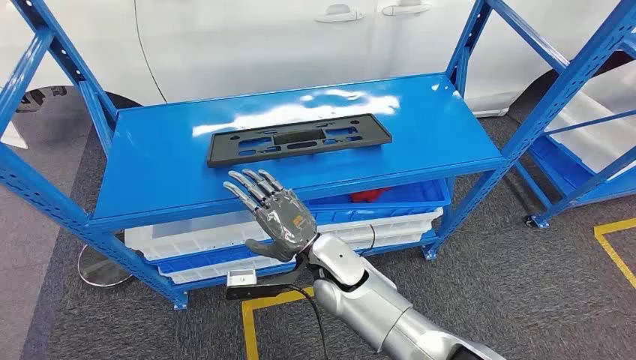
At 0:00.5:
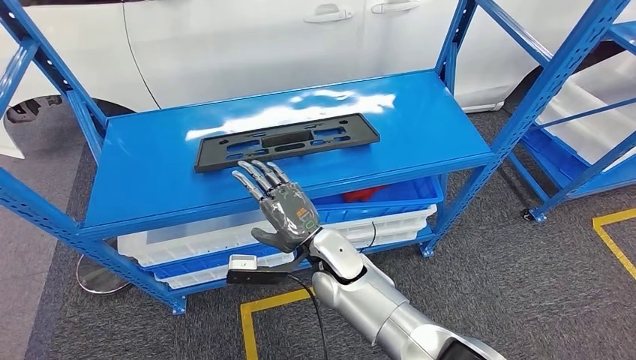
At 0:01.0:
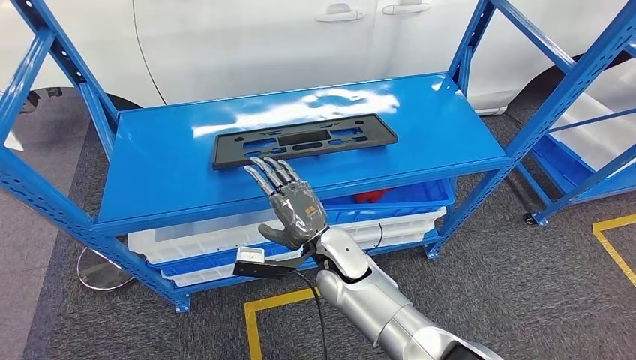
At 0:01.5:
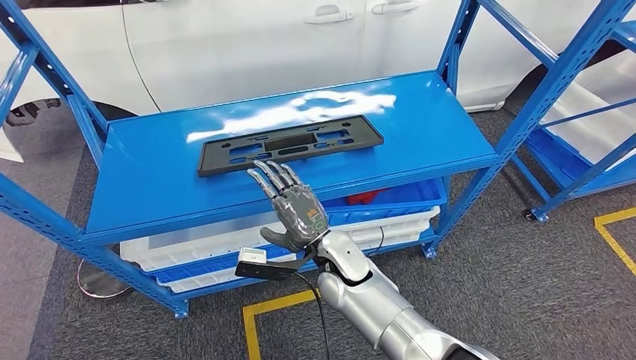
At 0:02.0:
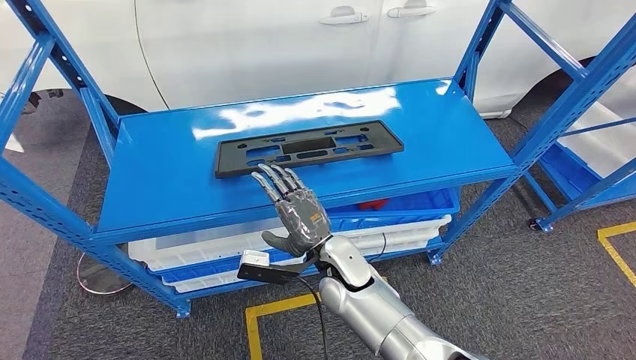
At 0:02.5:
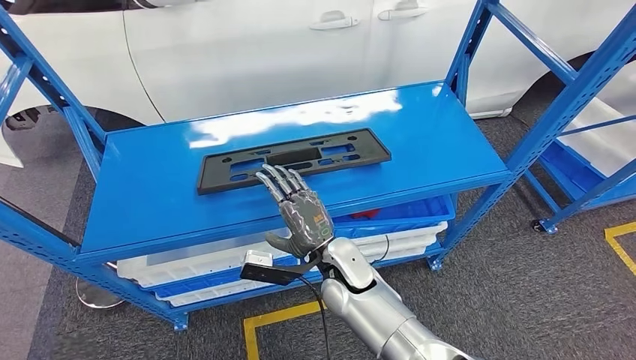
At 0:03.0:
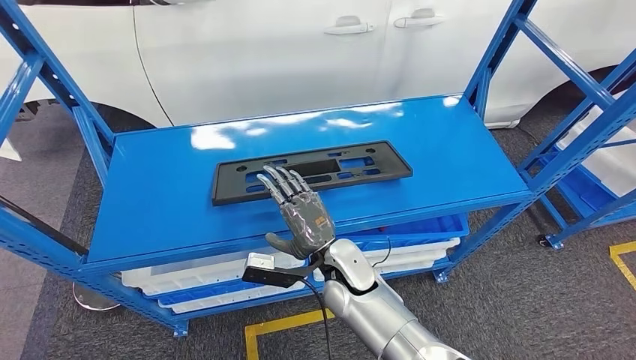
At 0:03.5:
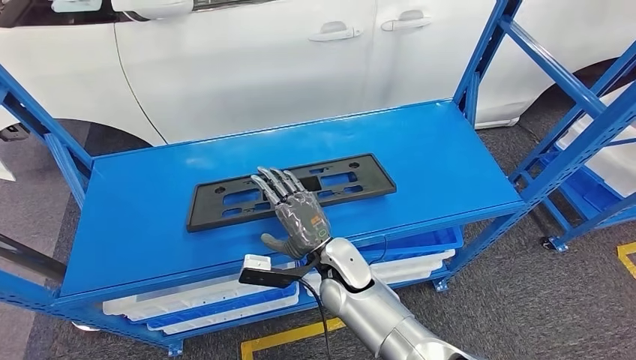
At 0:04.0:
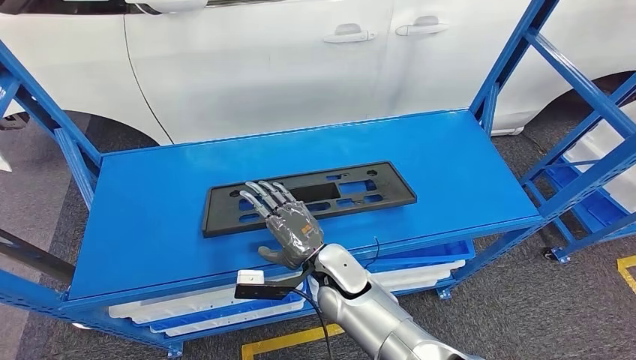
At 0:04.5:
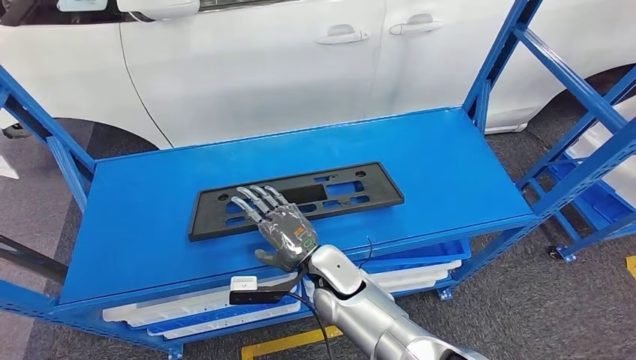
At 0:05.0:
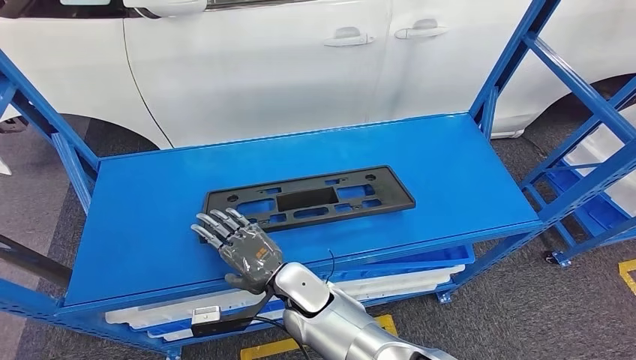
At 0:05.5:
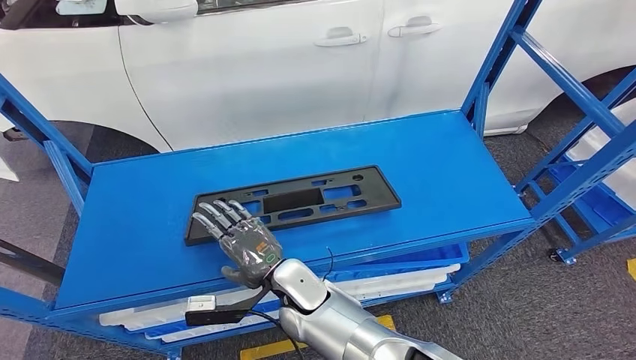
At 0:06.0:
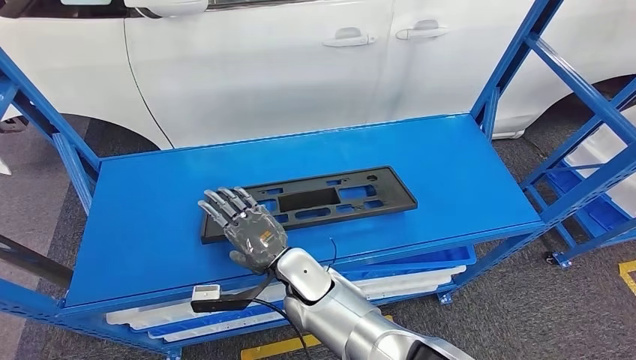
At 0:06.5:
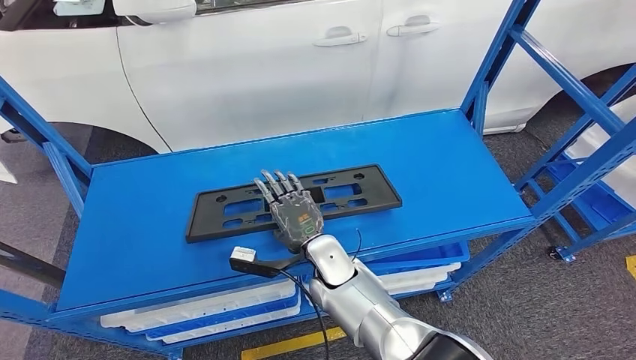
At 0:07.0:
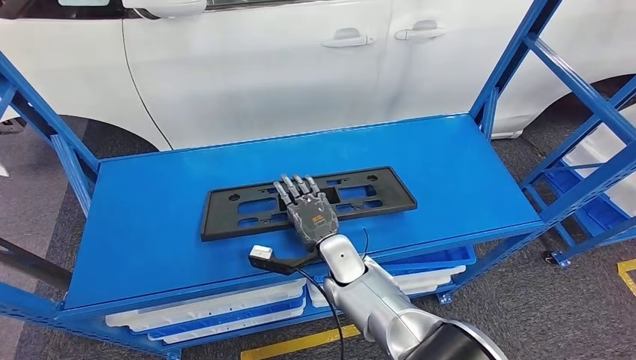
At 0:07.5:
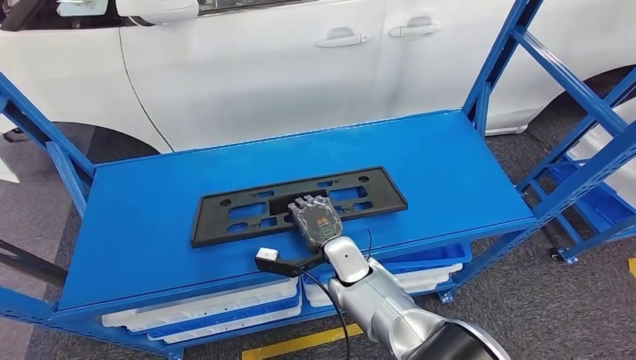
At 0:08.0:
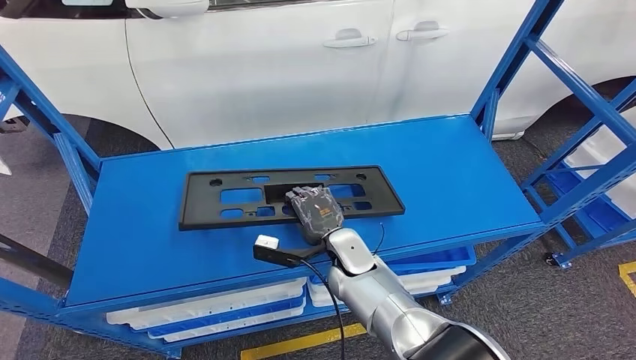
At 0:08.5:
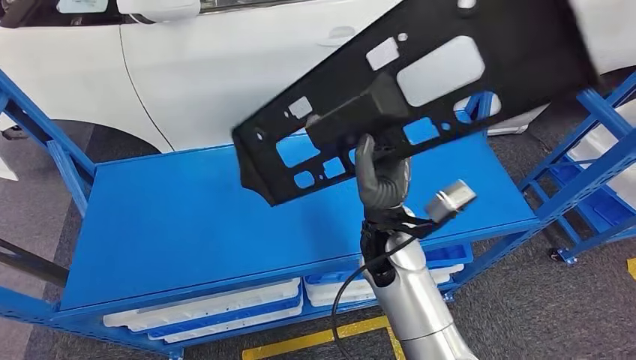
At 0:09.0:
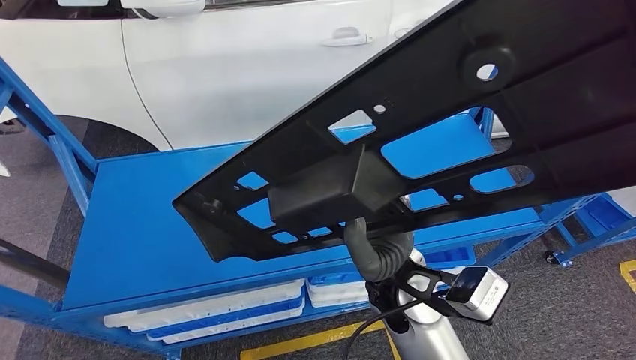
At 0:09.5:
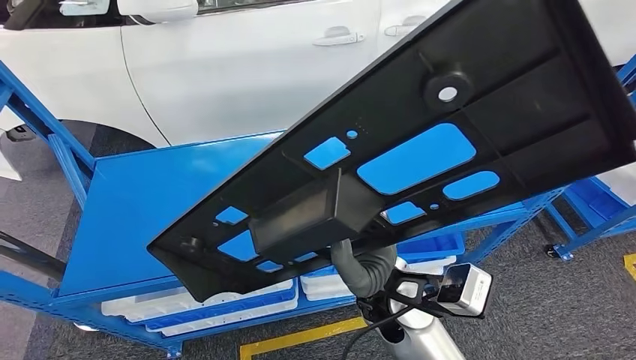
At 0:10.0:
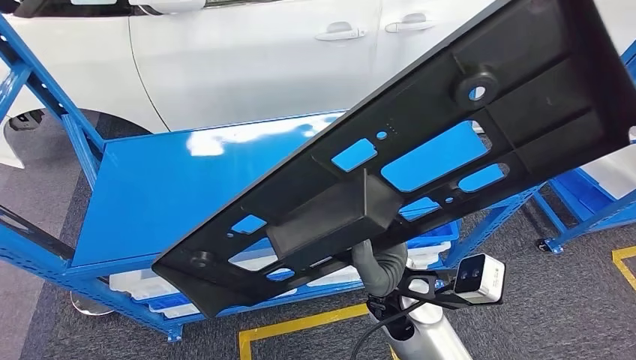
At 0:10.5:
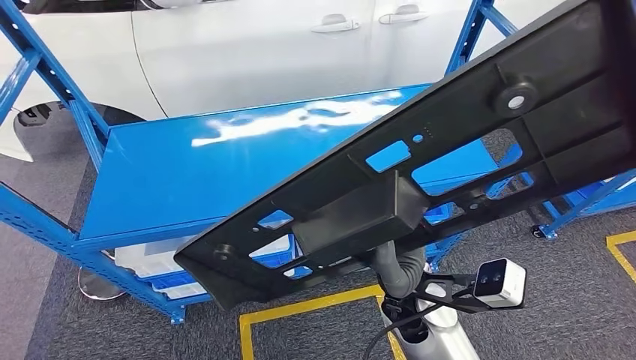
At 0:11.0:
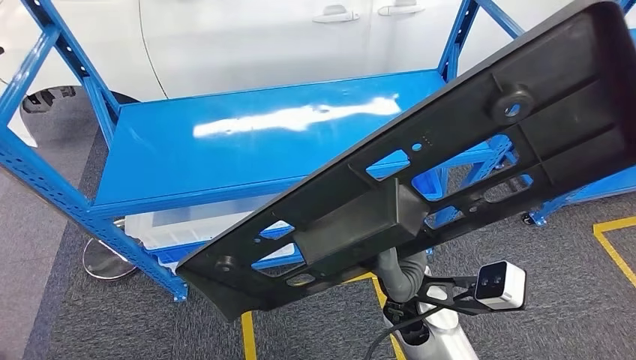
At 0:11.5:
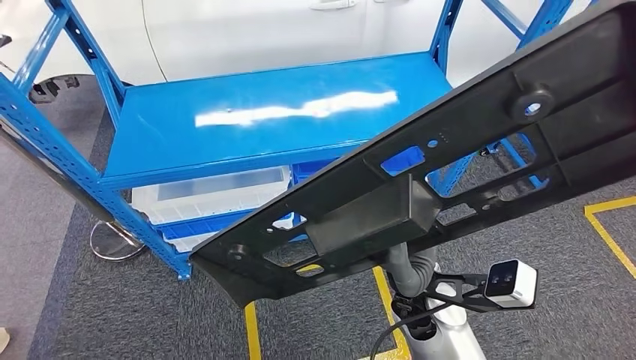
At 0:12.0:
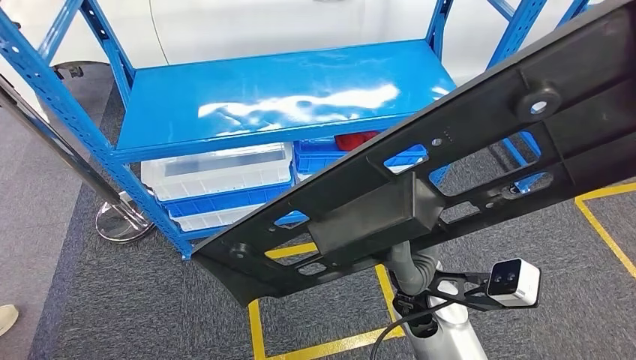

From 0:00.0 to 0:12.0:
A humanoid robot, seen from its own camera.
Step, from 0:00.0 to 0:09.0: Pick up the small component from the shelf.
From 0:06.0 to 0:08.0: The right hand shifts approximately 10 cm to the right and forward.

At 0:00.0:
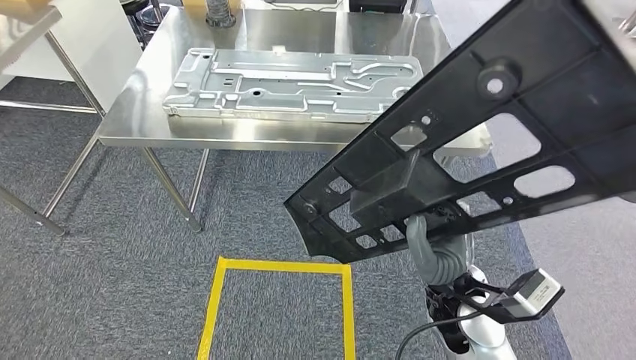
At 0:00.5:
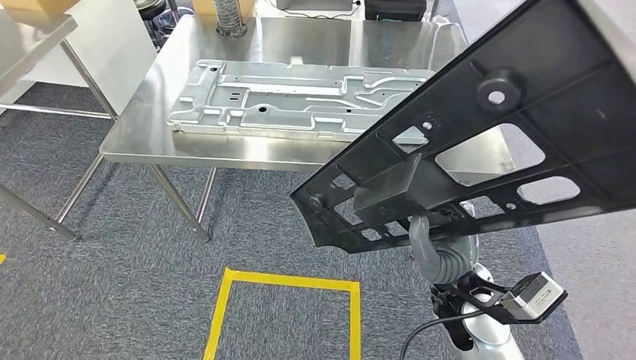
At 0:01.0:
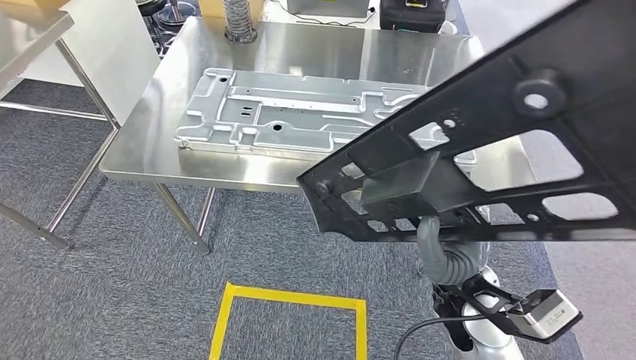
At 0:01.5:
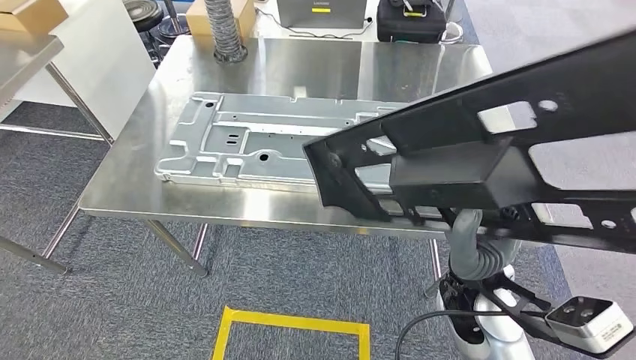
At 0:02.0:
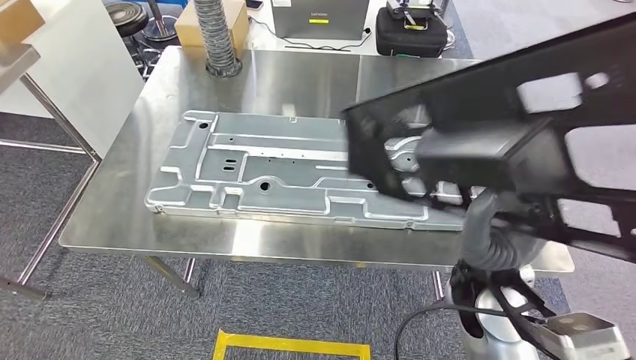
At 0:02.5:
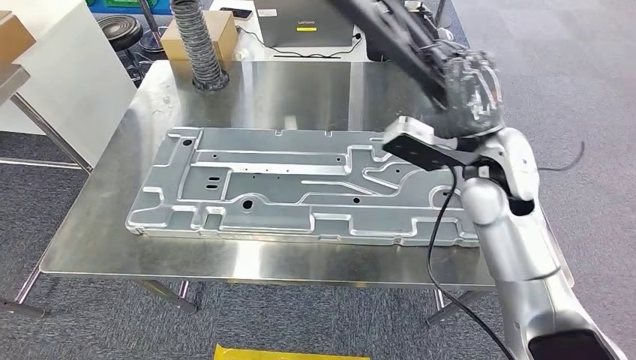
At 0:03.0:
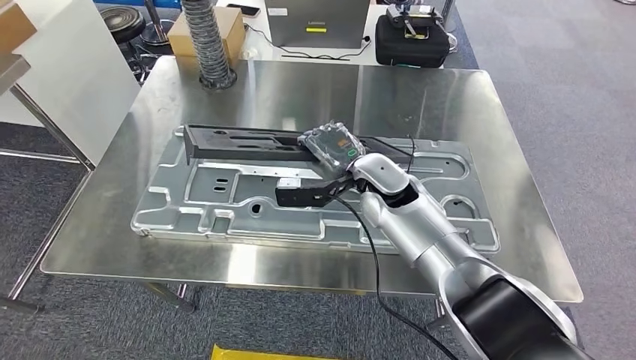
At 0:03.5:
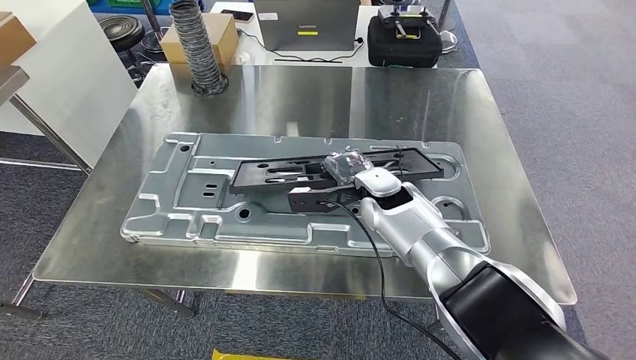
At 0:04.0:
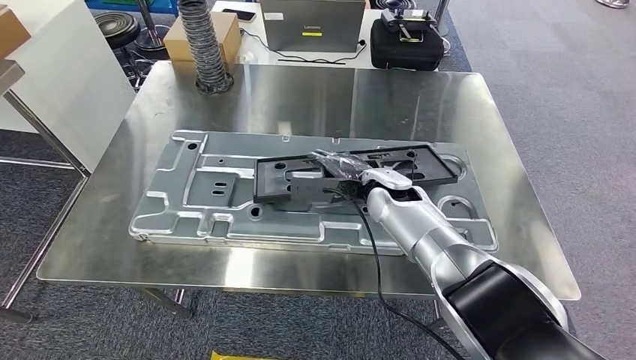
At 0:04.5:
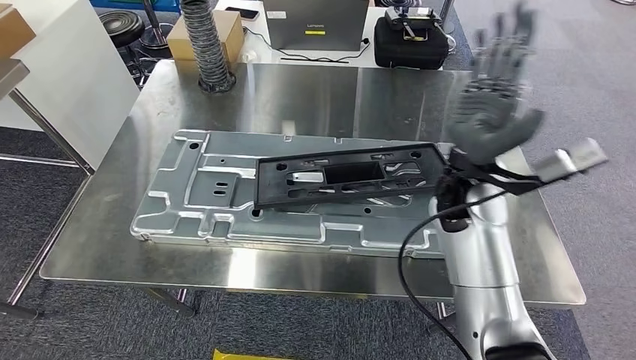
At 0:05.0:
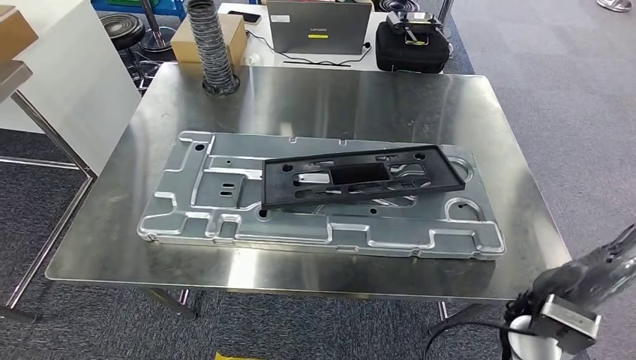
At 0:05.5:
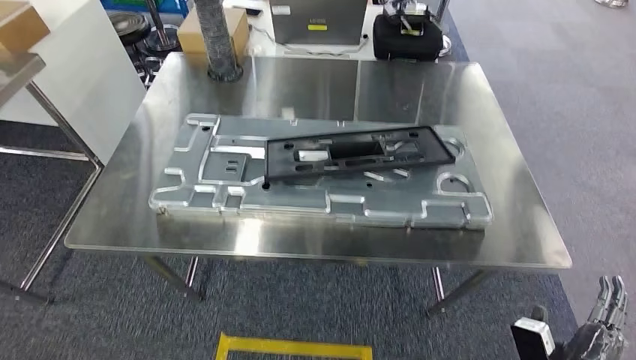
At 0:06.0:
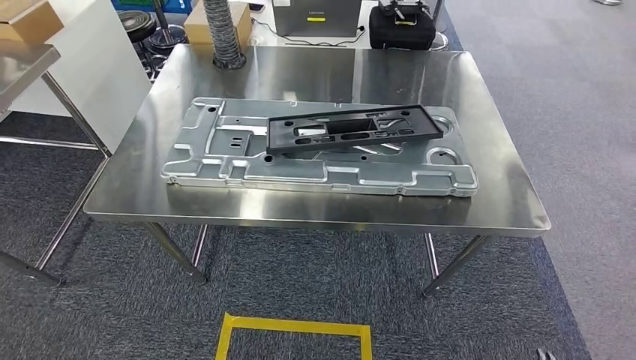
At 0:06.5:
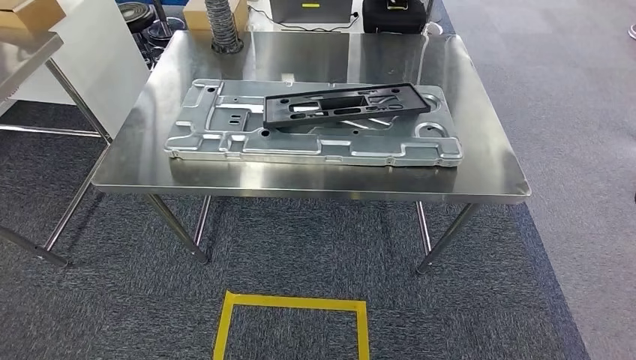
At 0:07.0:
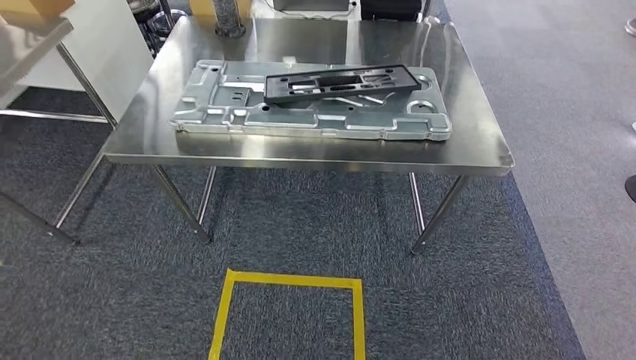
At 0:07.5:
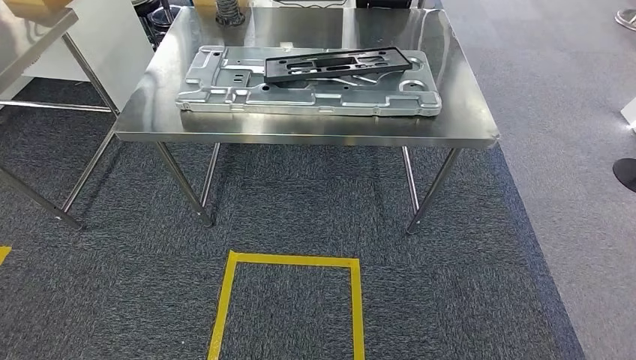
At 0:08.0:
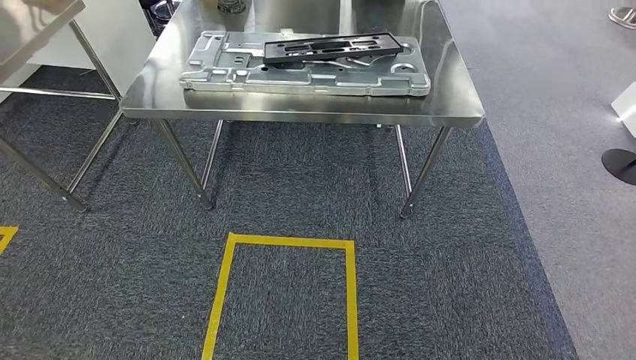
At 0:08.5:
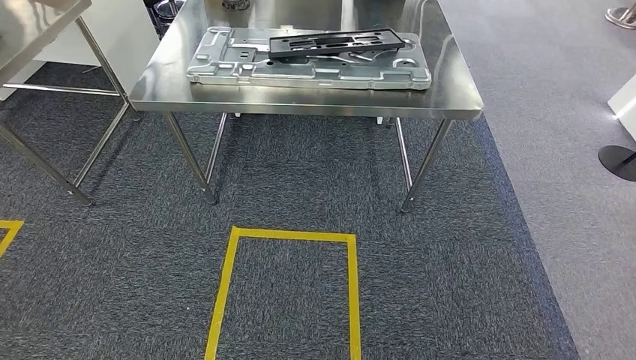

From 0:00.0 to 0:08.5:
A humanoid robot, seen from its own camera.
Step, from 0:01.5 to 0:05.0: Insert the small component into the corresponding slot on the workbench.
Step, from 0:05.5 to 0:08.5: Return to the initial position at the workbench.
